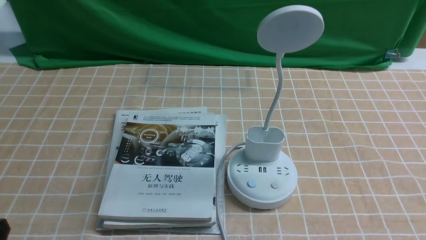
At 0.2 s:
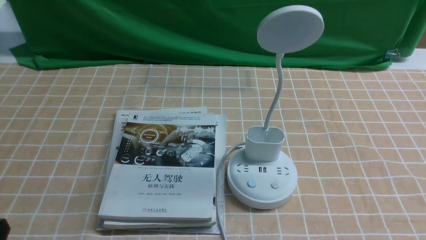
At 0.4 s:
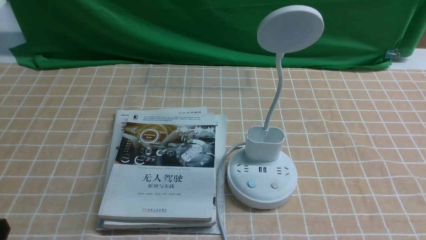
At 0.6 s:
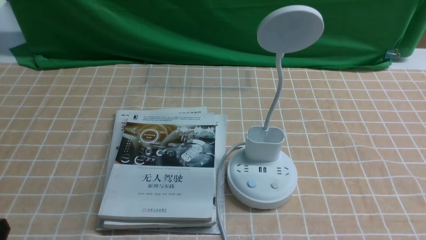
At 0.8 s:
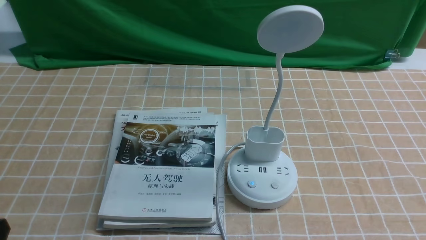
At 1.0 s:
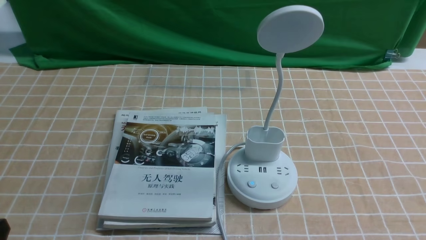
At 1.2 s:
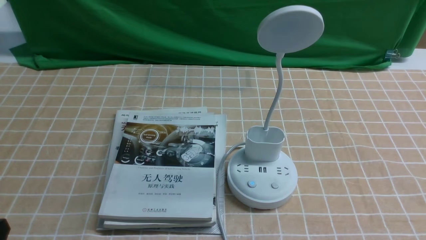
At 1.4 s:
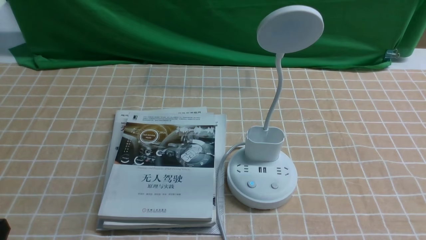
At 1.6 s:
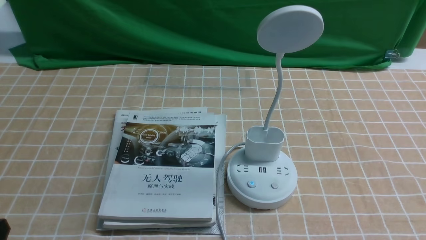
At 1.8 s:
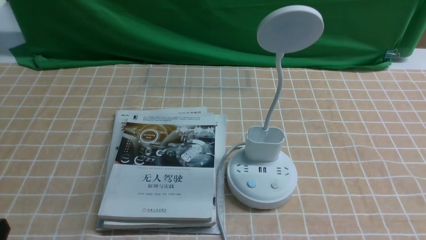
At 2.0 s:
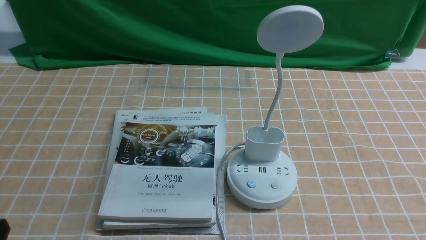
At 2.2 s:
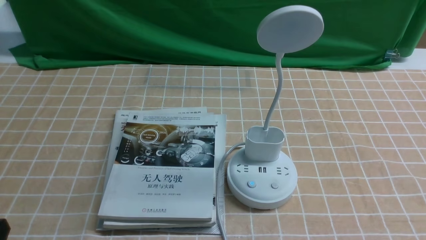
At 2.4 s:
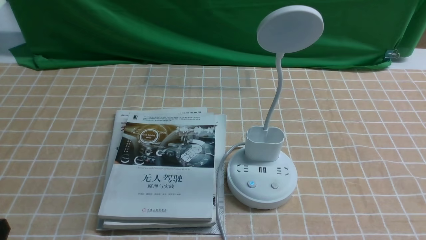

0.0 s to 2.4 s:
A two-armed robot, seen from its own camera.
Task of the whole recording: turn off the desk lamp on the light coffee tablecloth by hand.
0.0 to 1.2 s: Both grippers stay about where they are.
